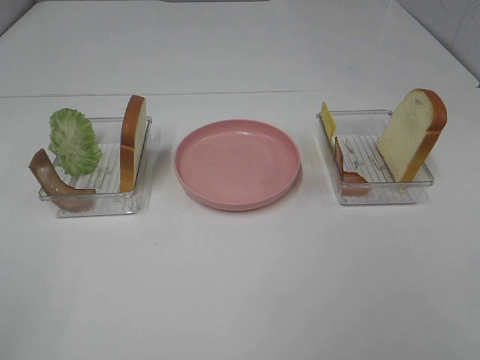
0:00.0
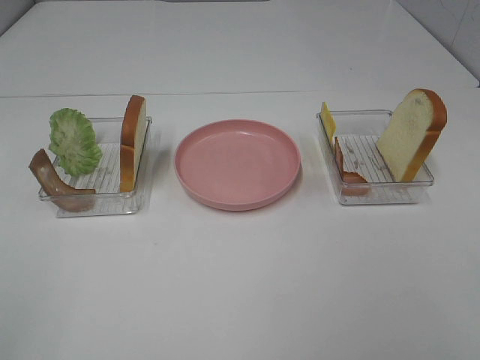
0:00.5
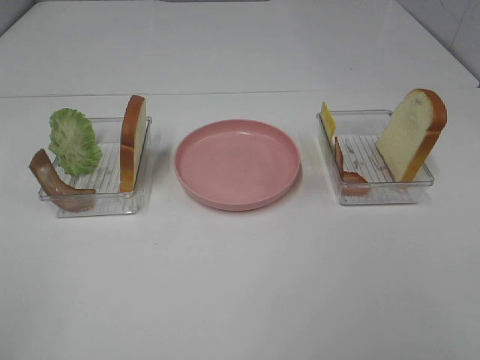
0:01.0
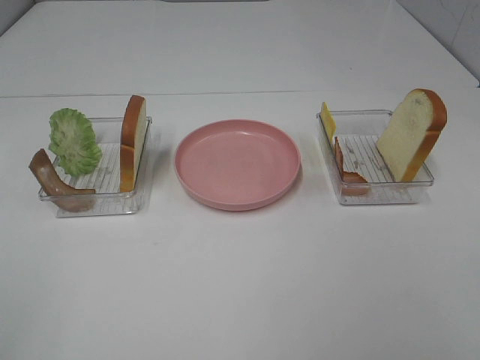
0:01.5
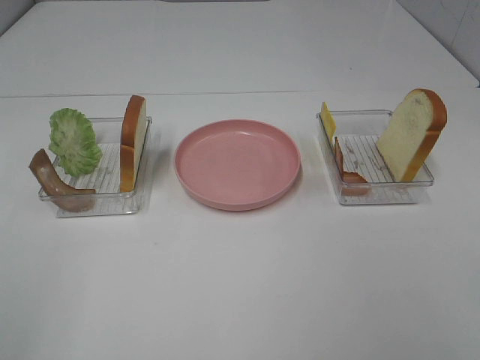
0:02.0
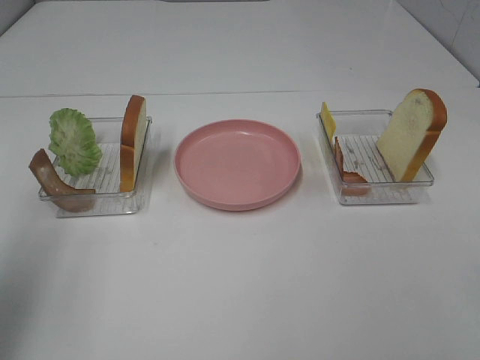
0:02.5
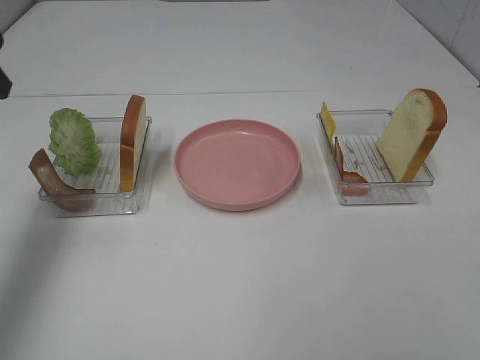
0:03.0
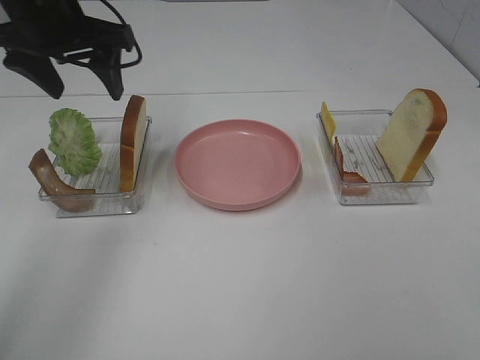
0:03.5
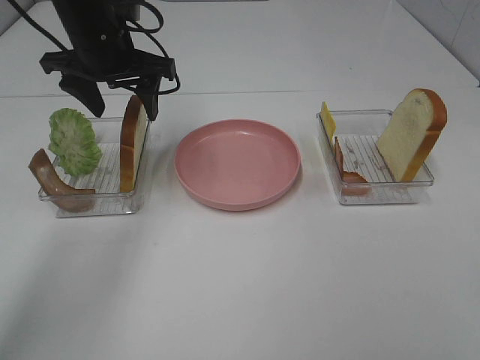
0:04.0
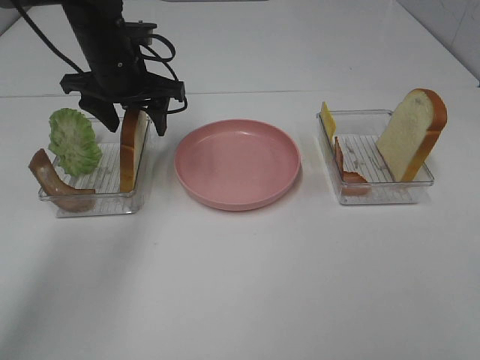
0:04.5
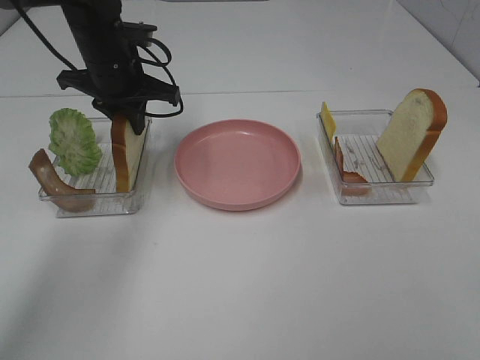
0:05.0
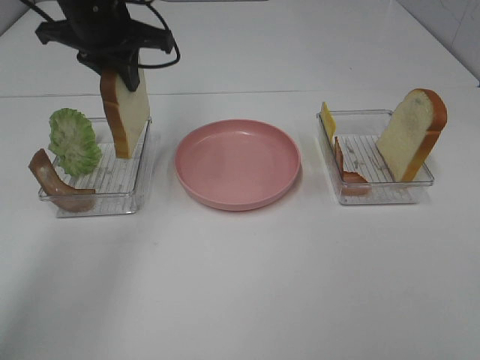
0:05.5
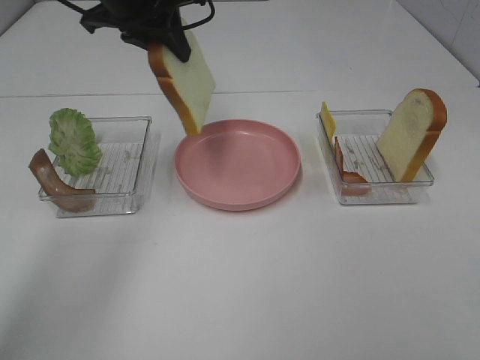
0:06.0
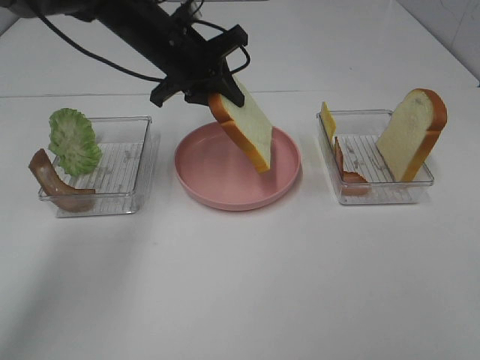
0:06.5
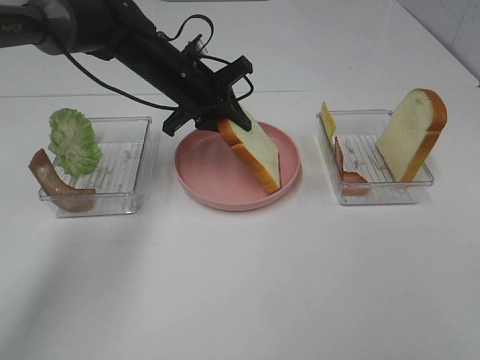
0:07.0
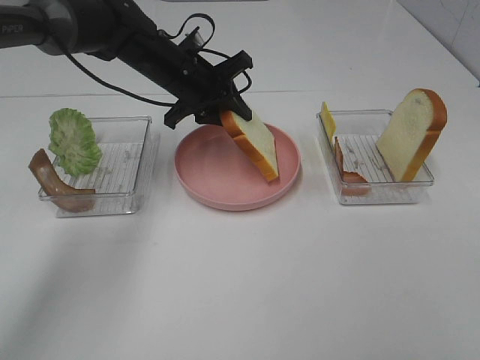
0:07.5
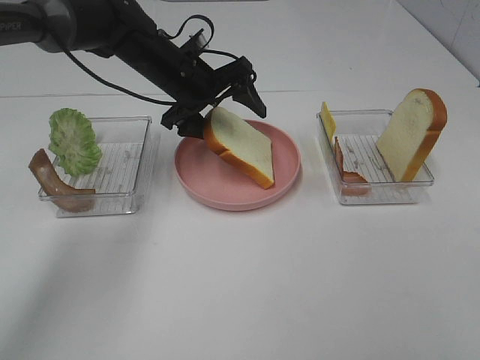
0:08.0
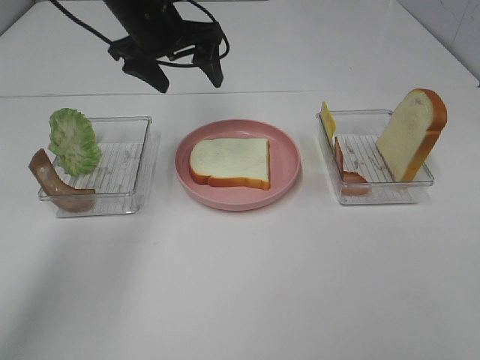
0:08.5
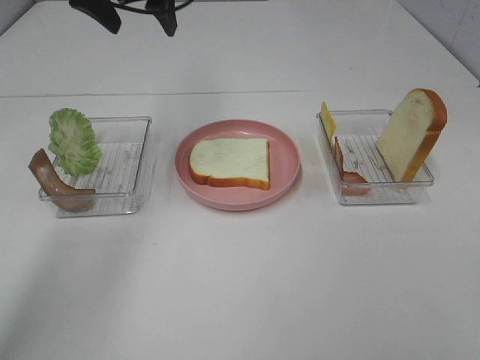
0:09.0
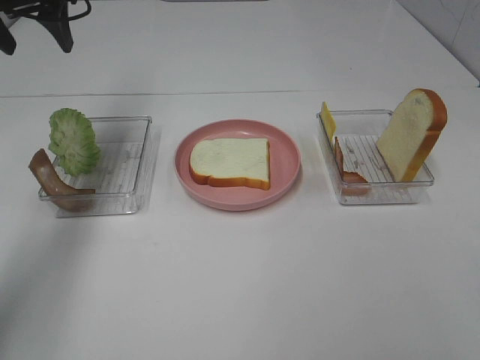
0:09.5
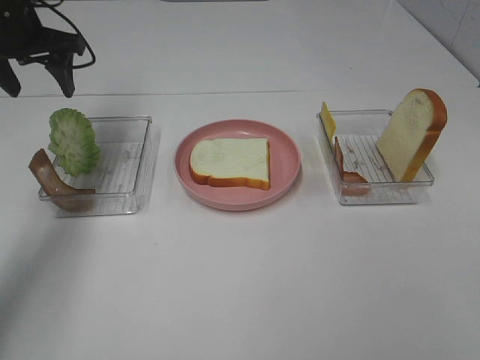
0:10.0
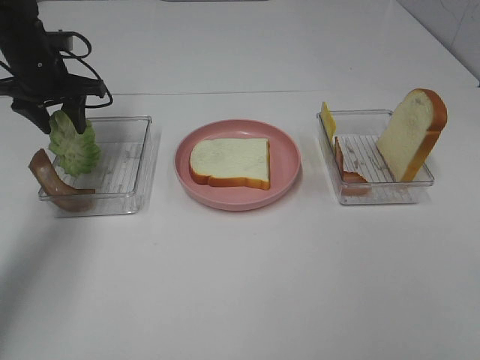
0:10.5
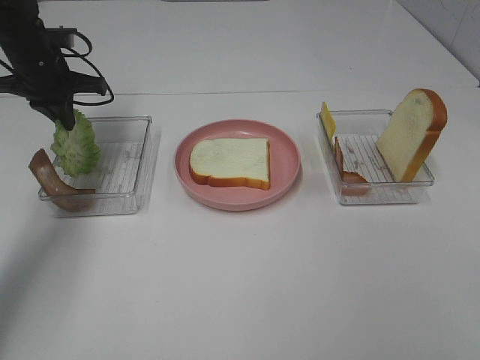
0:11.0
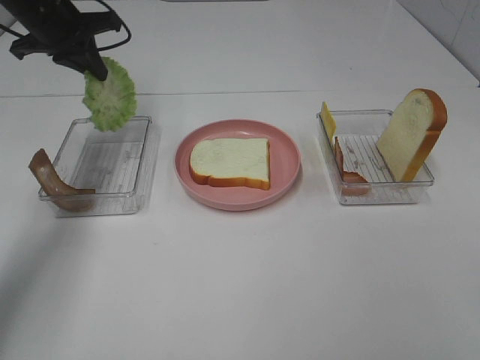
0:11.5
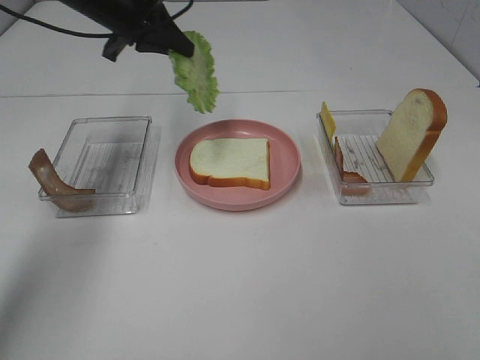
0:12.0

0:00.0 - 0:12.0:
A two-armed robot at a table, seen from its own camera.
Task of the whole recording: Make sandwiches.
Step, 0:00.0 - 0:05.0: Left hand:grab the bread slice.
Step, 0:05.5 - 0:08.5: Left hand:place the bread slice on the plate.
Step, 0:09.0 - 0:11.0: Left hand:grab the lettuce slice.
0:02.0 - 0:04.0: The left gripper is displaced forward by roughly 40 cm.
0:04.0 - 0:06.0: The left gripper goes about 5 cm upward, and closes its fingers.
0:06.0 - 0:08.0: The left gripper shifts about 15 cm downward, and opens.
0:08.0 - 0:10.0: The left gripper heads to the left and upward, covering approximately 20 cm.
0:10.0 - 0:12.0: The left gripper shifts roughly 10 cm to the right, and closes.

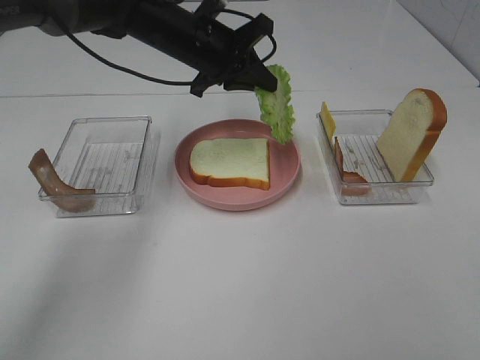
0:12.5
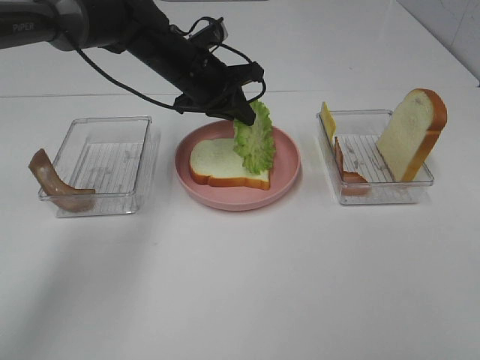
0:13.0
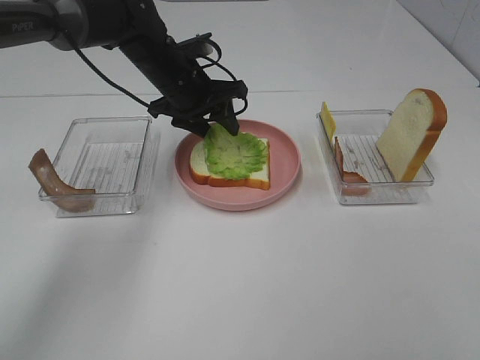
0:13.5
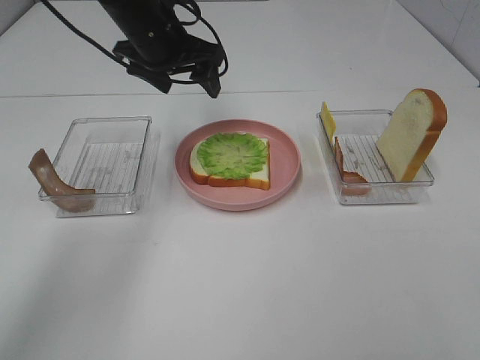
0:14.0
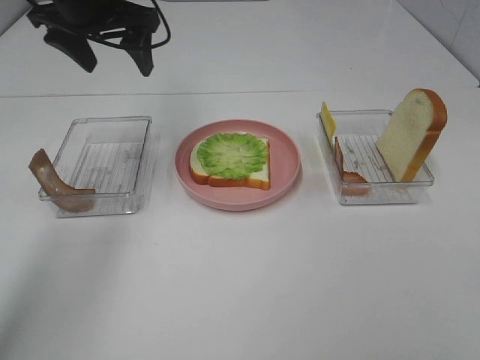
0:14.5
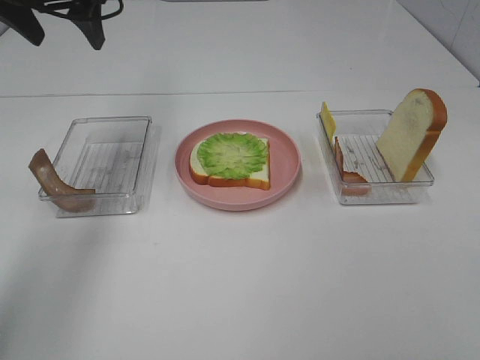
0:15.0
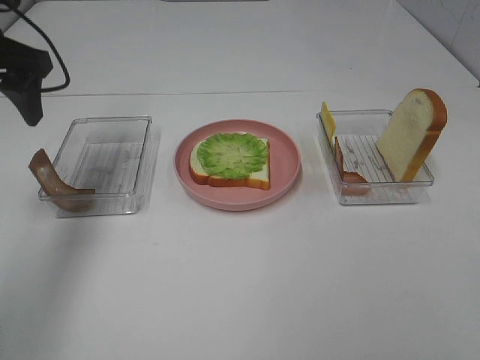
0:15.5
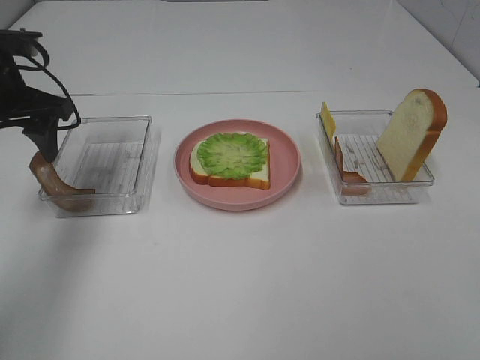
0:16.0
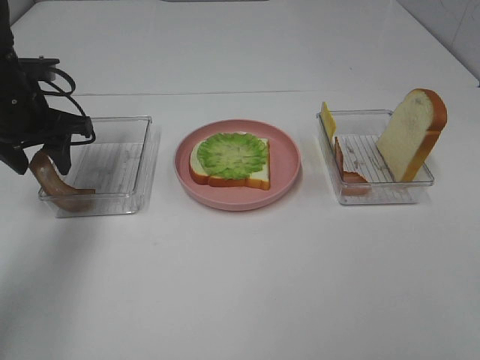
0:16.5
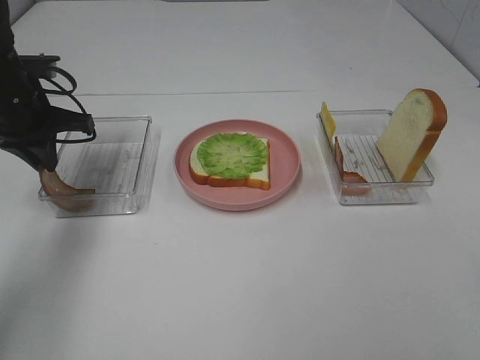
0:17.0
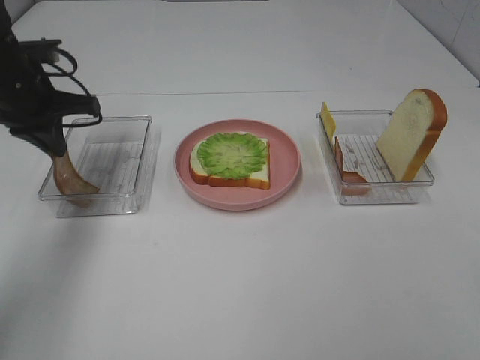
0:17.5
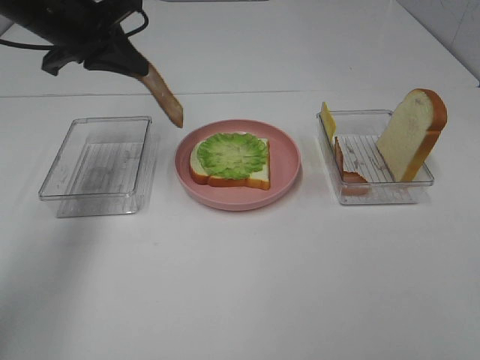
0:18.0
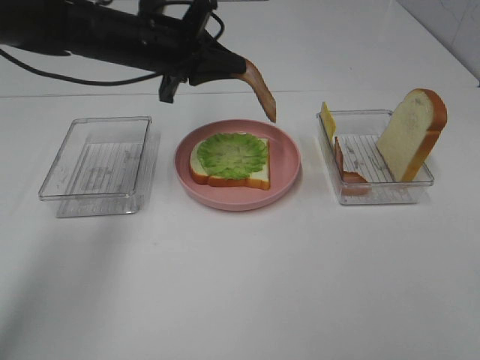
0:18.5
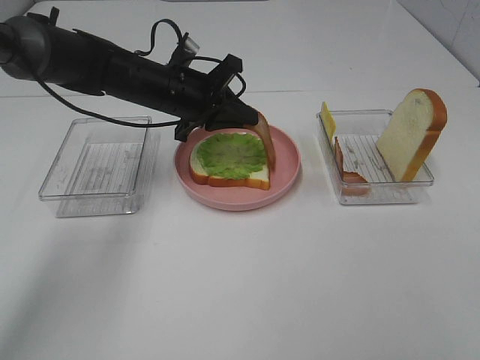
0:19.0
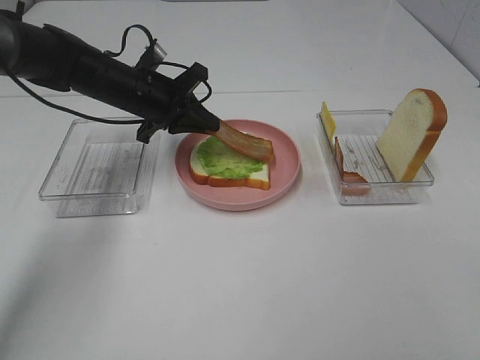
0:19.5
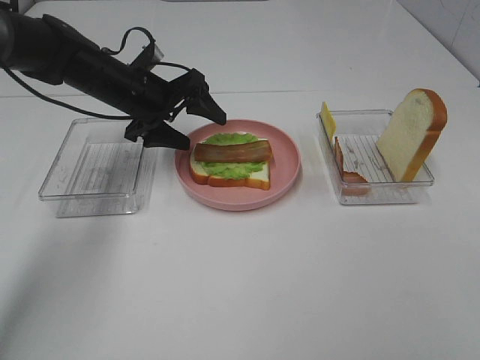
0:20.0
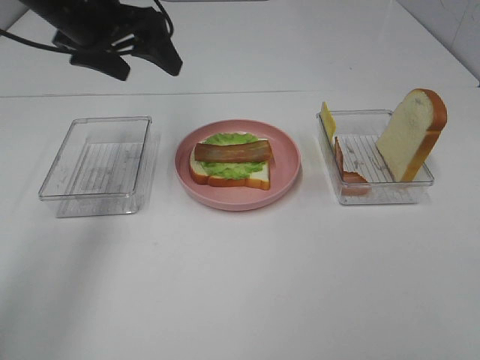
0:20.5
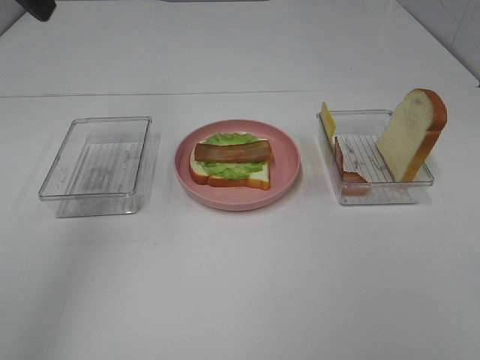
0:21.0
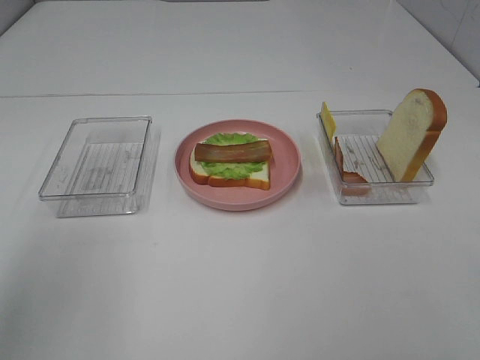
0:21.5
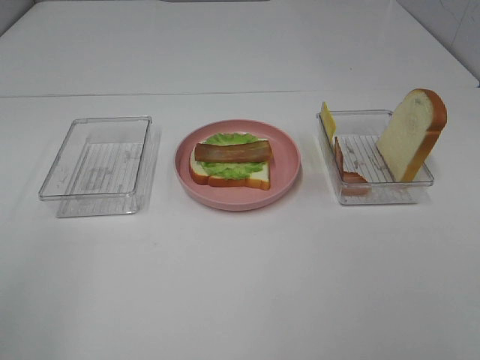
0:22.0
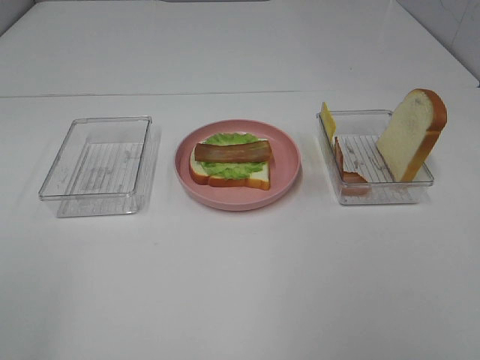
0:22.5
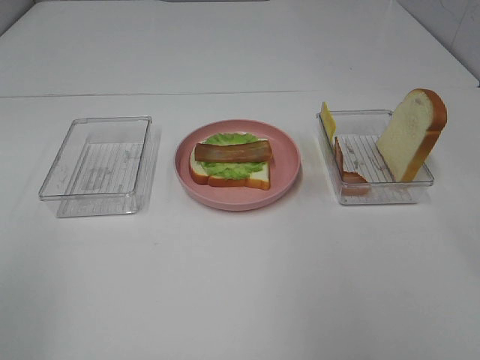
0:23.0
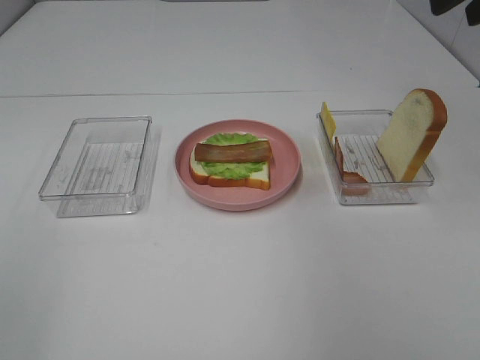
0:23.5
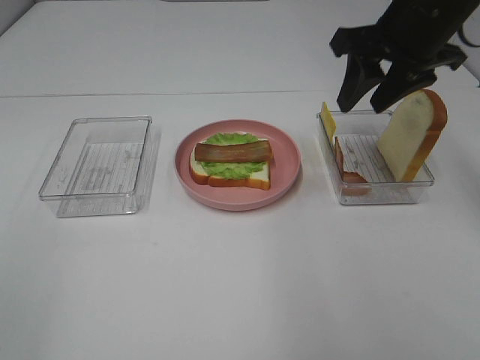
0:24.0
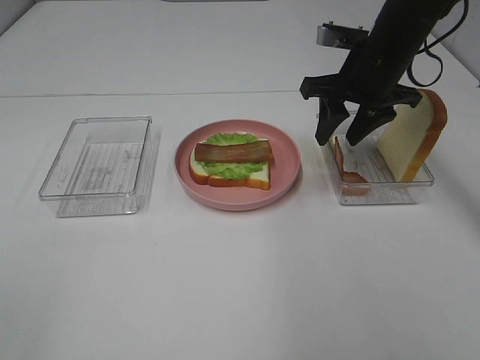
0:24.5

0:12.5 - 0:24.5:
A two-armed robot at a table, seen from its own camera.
Task of the whole recording: Make sandwiches.
Step, 0:14.0 - 0:17.0: Left hand:grab the bacon.
Step, 0:17.5 - 0:20.0: Left hand:place bacon on lettuce slice.
0:12.5 - 0:14.5: The left gripper is displaced to the left and upward by approximately 15 cm, and opens.
0:14.5 - 0:16.5: The left gripper travels downward, to the left and backward by some 15 cm.
0:16.5 - 0:18.5: The left gripper goes some 15 cm to the right, and closes.
0:18.5 - 0:20.5: The left gripper heads upward and to the left, covering approximately 10 cm, and opens.
0:20.5 - 0:22.5: The left gripper moves backward, about 40 cm. The right gripper heads forward and upward, covering approximately 10 cm.
0:22.5 - 0:24.5: The right gripper goes about 35 cm forward and downward.

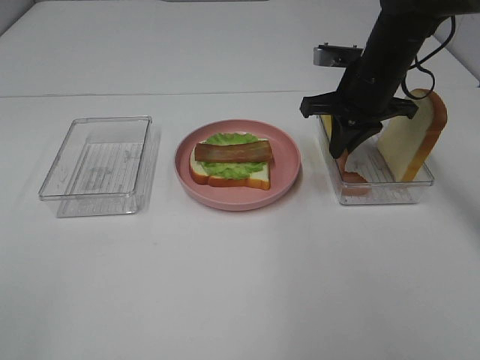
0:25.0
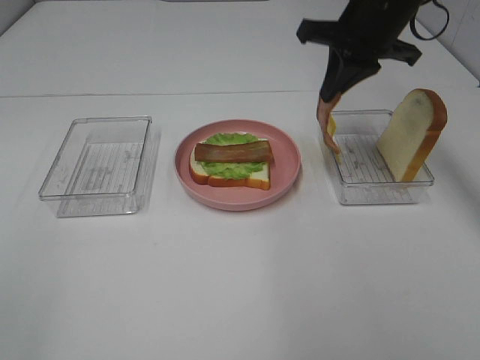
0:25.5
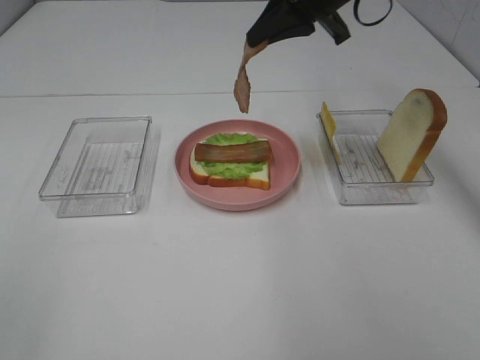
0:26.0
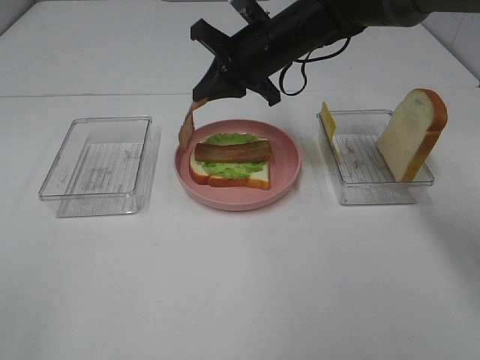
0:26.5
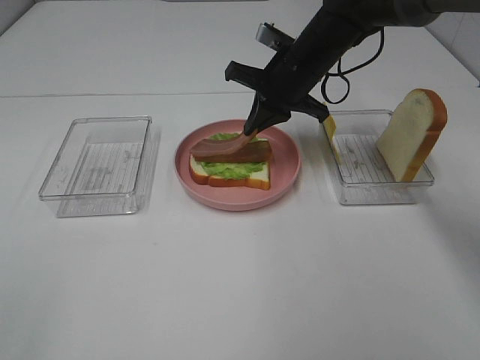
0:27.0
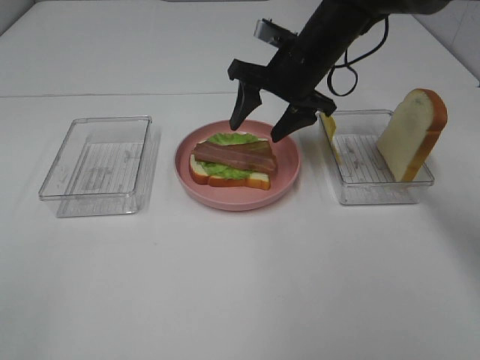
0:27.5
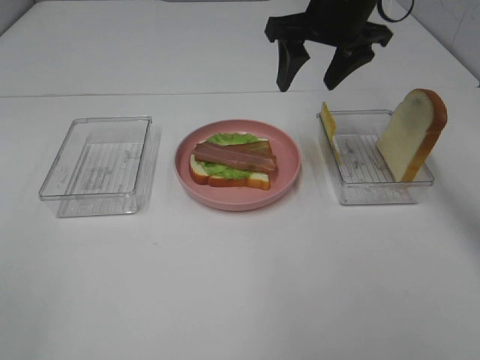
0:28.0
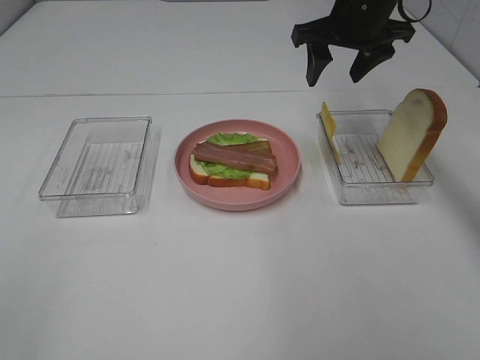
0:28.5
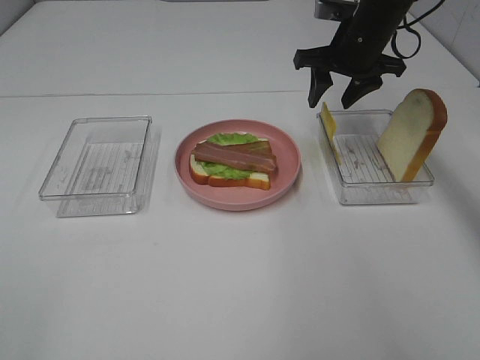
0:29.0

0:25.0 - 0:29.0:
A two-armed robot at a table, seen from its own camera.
Task of the whole recording: Make sandwiches.
Step, 0:25.5 - 0:27.5: Right hand:place bacon on bacon.
0:25.0 - 0:27.0: The right gripper travels to the left by about 10 cm, and goes upward and returns, roughly 10 cm each way.
0:27.0 - 0:29.0: The right gripper goes roughly 10 cm to the right, goes upward and returns, some 10 cm each way, and opens up.
